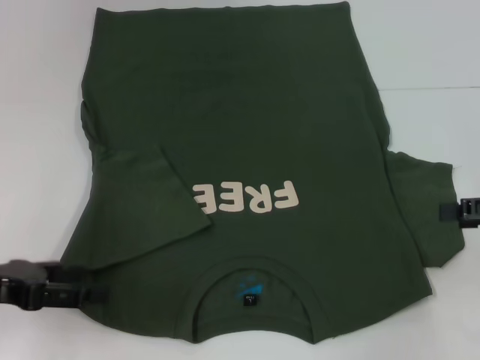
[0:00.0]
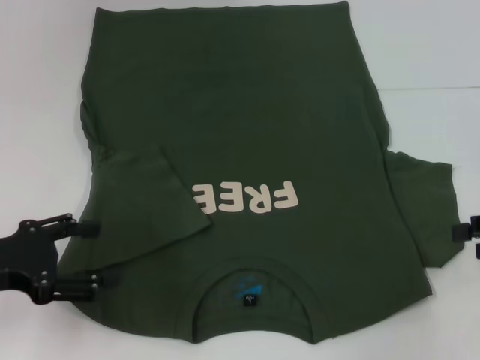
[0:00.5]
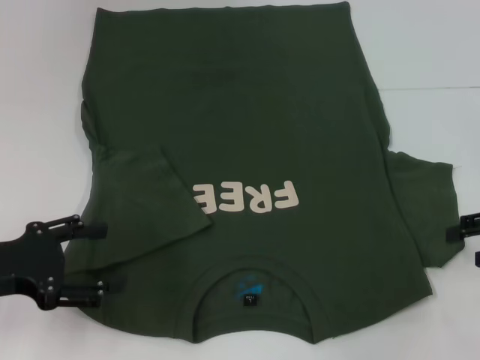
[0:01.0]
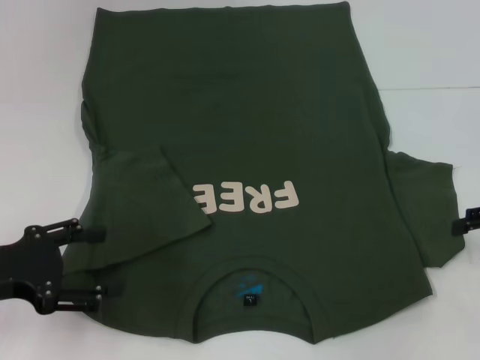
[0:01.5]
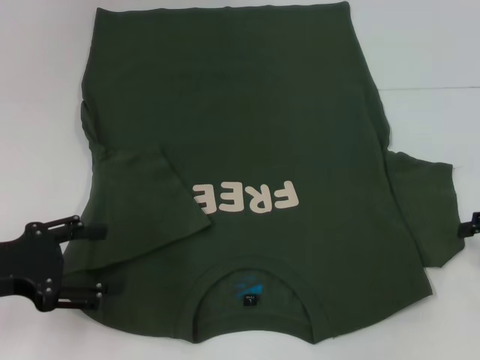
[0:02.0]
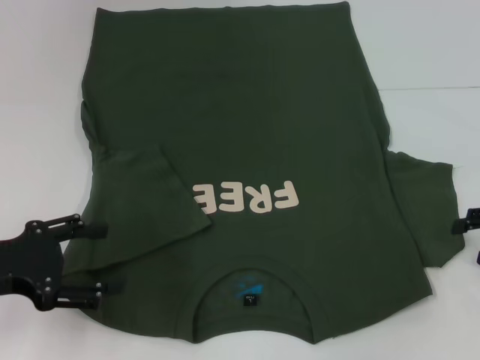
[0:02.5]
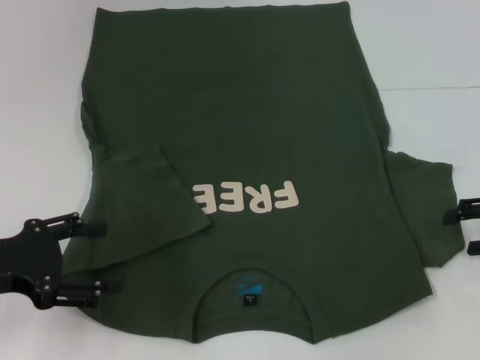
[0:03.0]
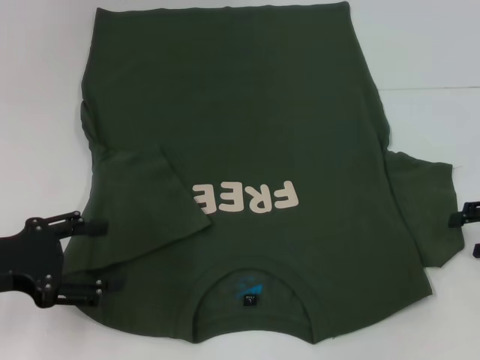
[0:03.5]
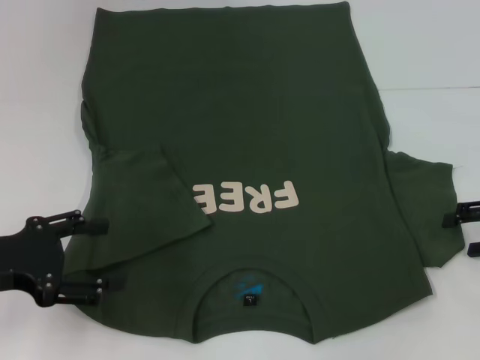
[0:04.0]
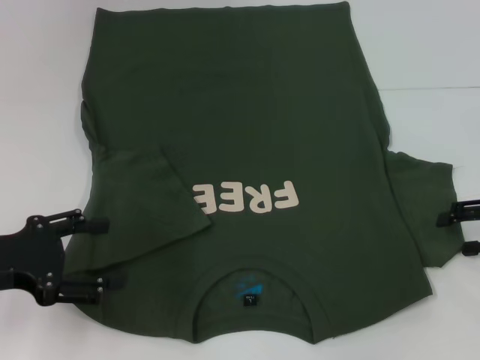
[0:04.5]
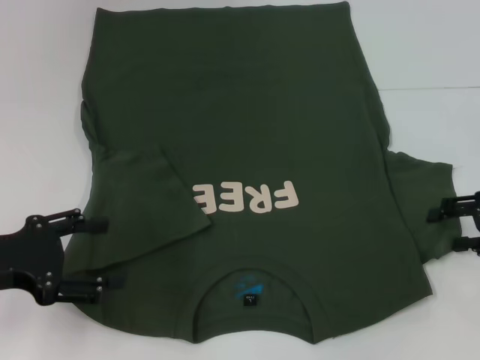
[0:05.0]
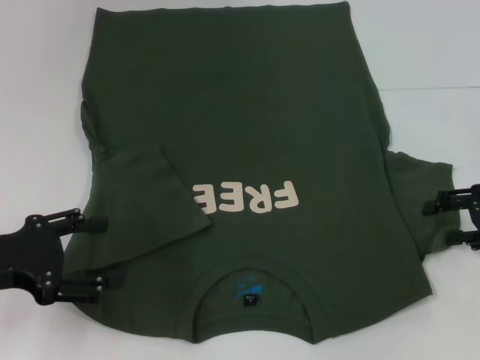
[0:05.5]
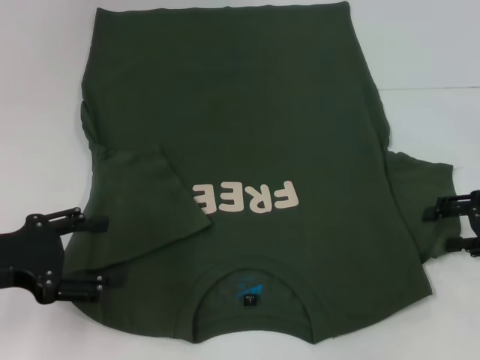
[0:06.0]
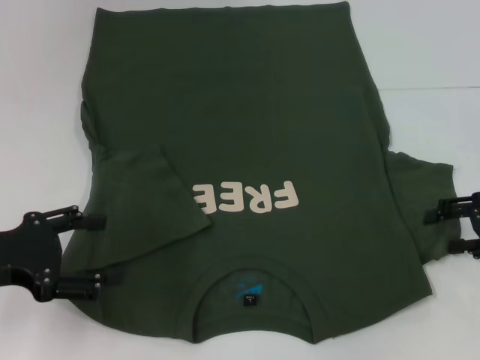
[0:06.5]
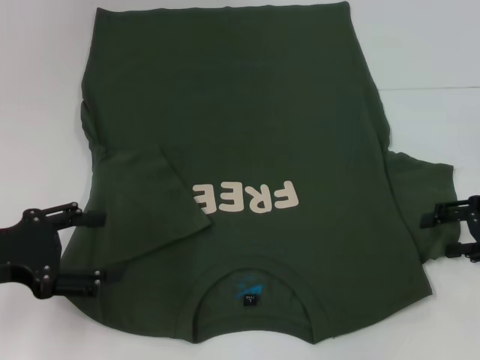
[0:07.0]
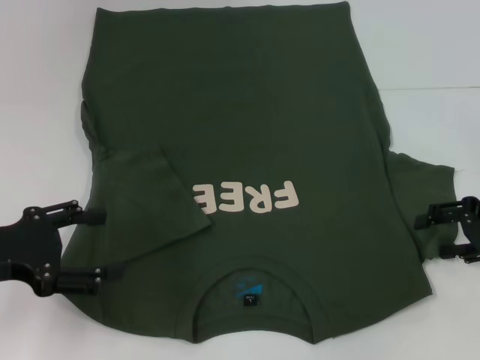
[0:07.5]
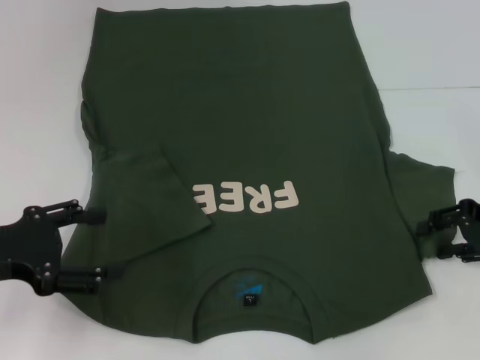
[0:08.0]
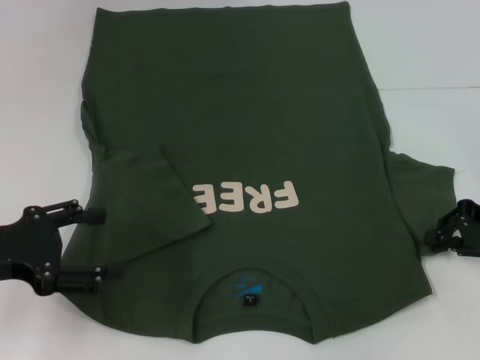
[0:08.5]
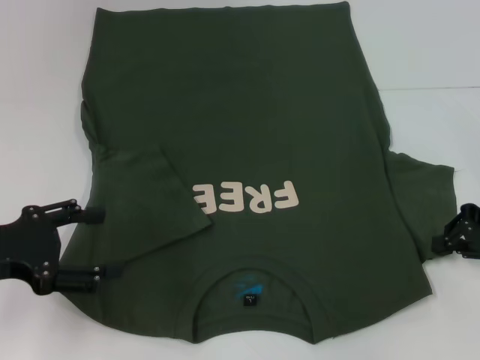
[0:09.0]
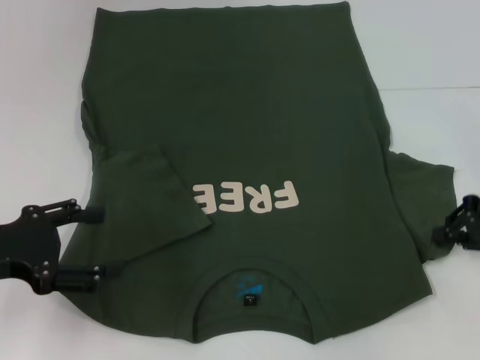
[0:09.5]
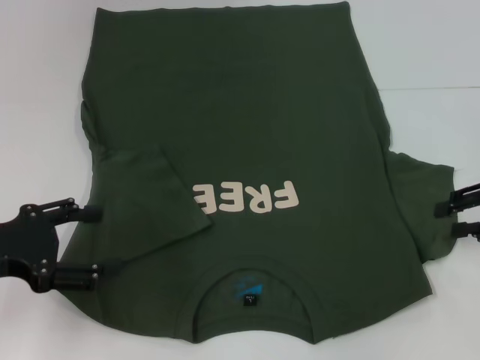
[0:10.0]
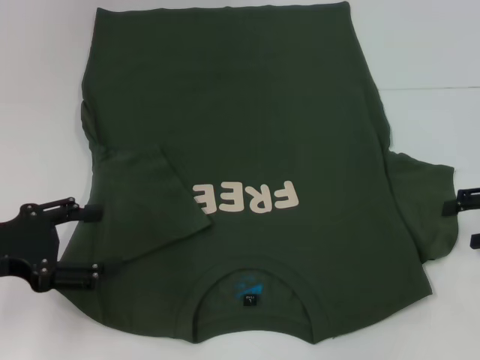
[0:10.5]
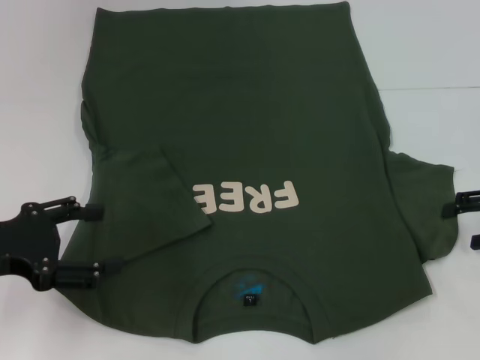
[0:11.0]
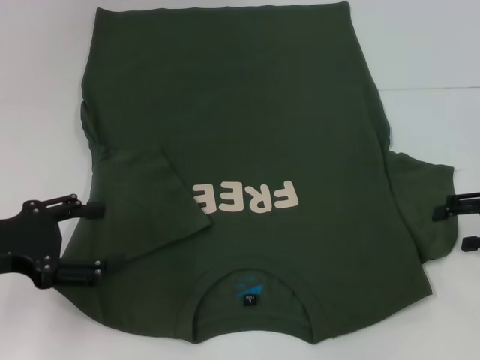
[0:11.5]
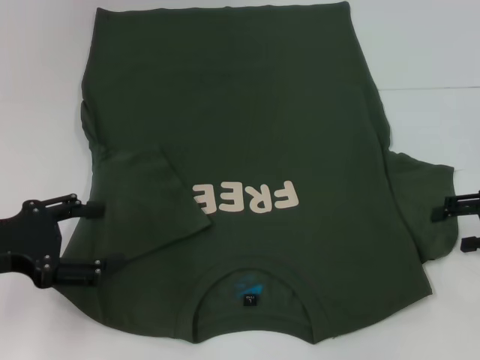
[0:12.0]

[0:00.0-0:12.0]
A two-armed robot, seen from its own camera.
0:02.0 to 0:06.0: The grippers make only small movements.
0:06.0 to 0:08.0: The two grippers keep their place.
0:08.0 to 0:10.0: The right gripper closes its fingers.
0:10.0 to 0:12.0: The right gripper opens its fingers.

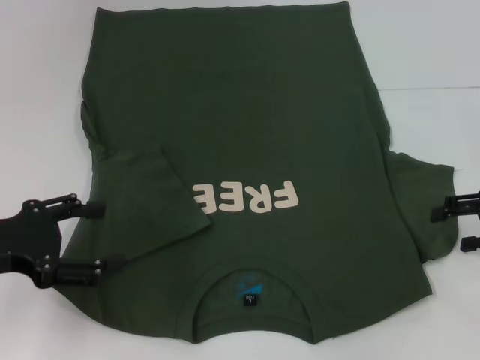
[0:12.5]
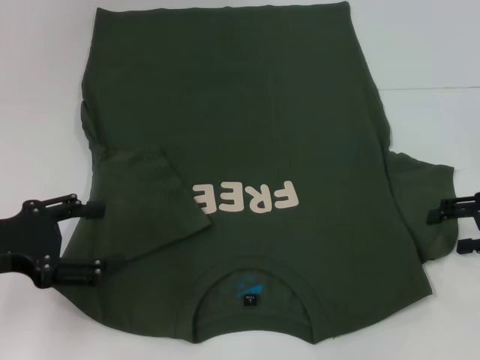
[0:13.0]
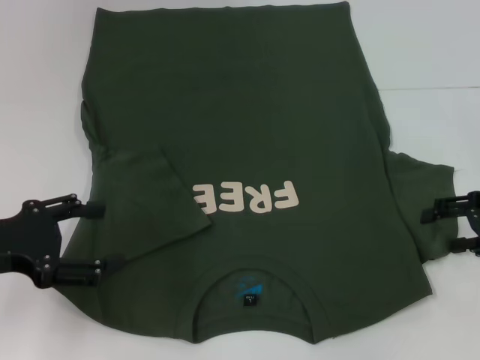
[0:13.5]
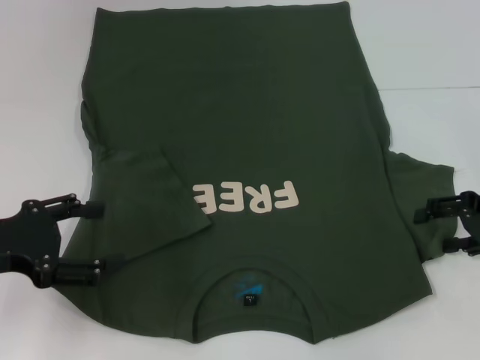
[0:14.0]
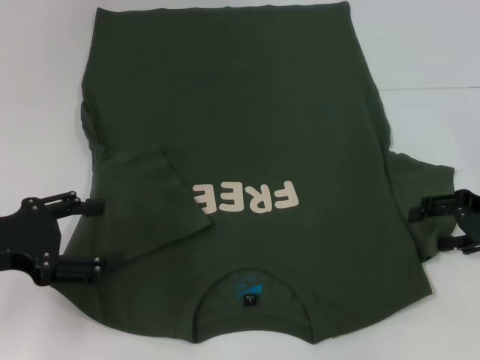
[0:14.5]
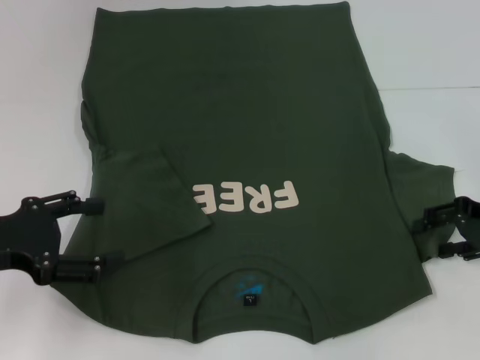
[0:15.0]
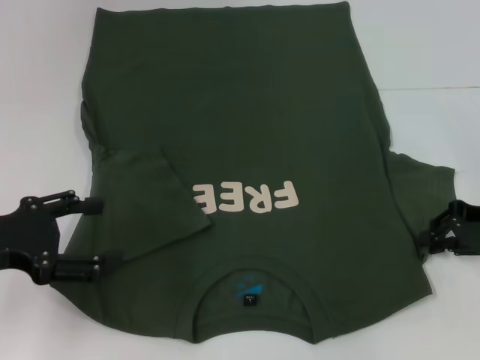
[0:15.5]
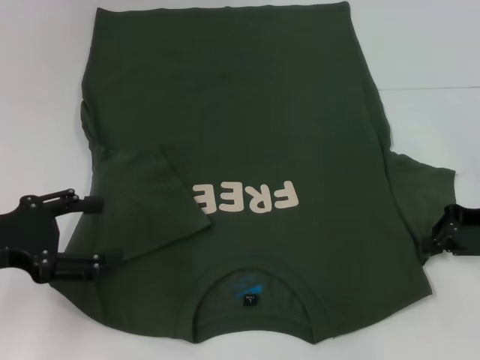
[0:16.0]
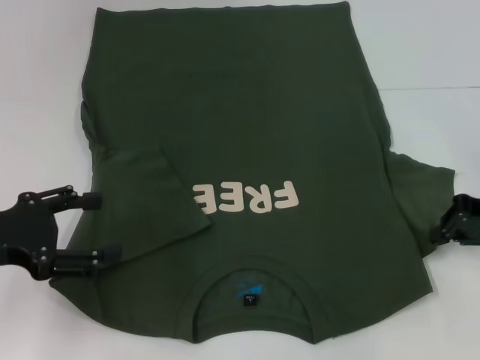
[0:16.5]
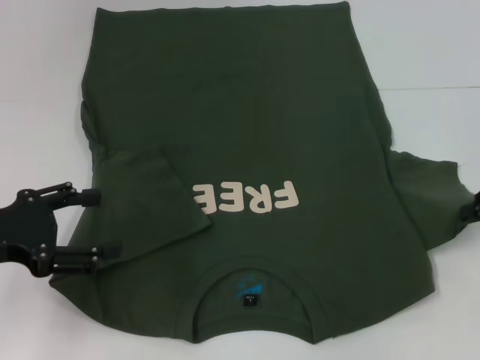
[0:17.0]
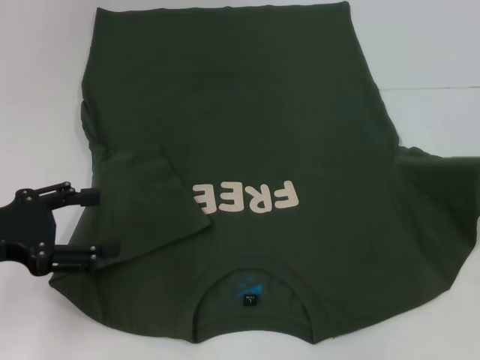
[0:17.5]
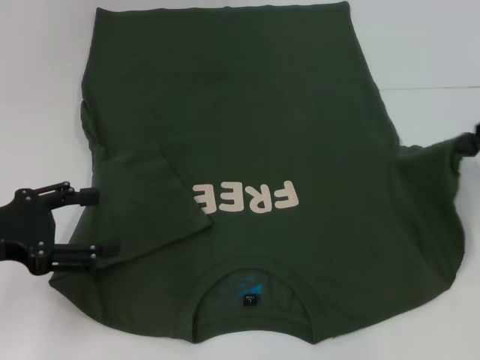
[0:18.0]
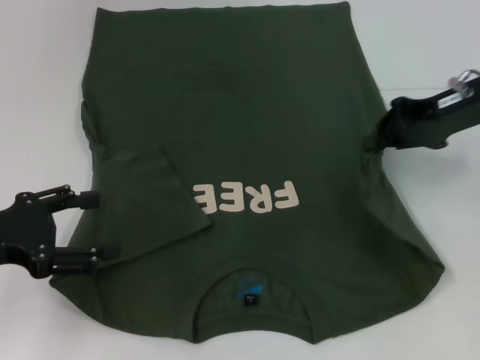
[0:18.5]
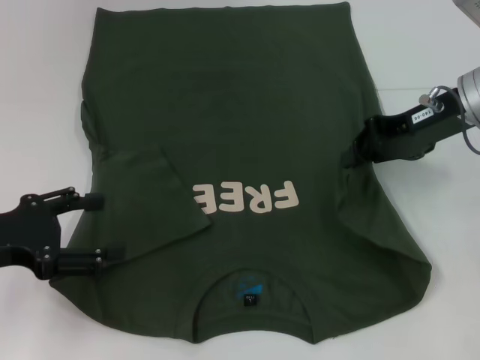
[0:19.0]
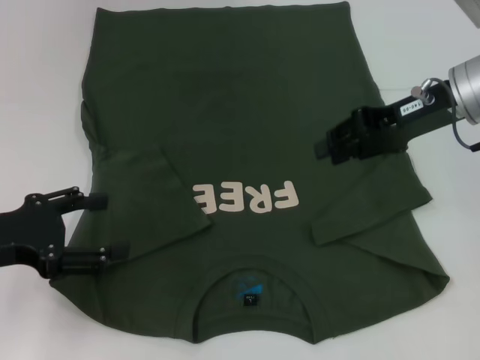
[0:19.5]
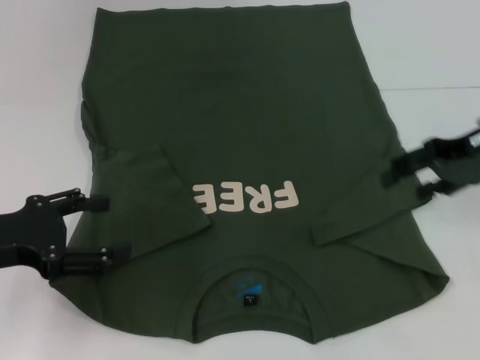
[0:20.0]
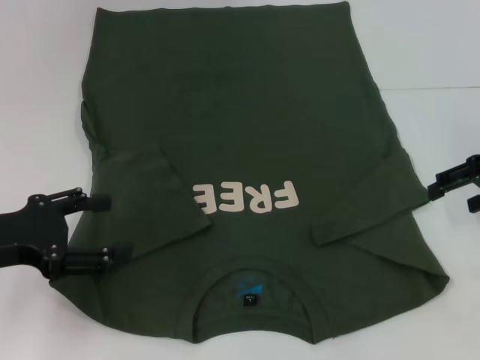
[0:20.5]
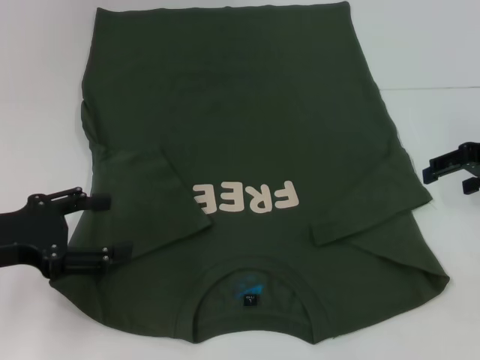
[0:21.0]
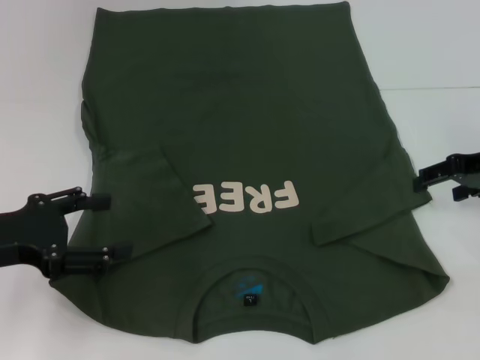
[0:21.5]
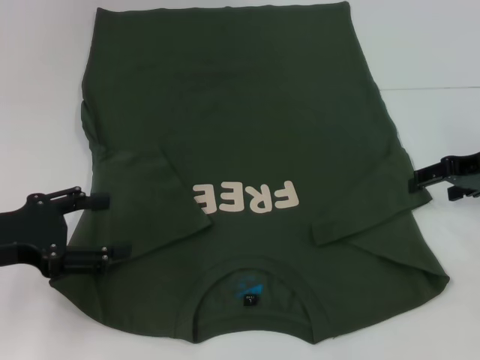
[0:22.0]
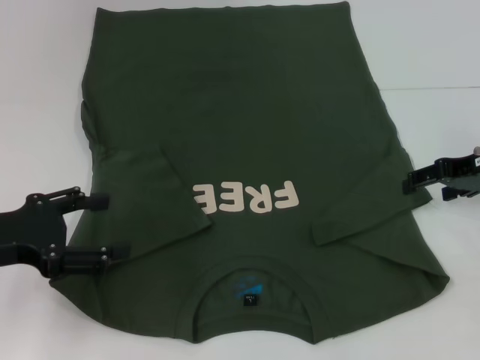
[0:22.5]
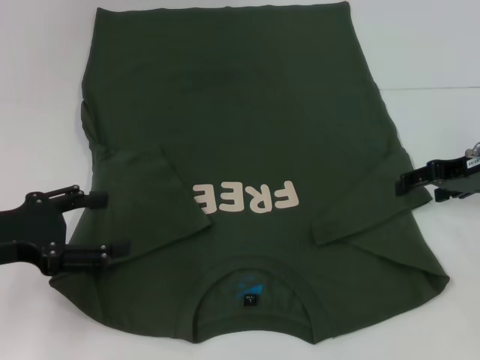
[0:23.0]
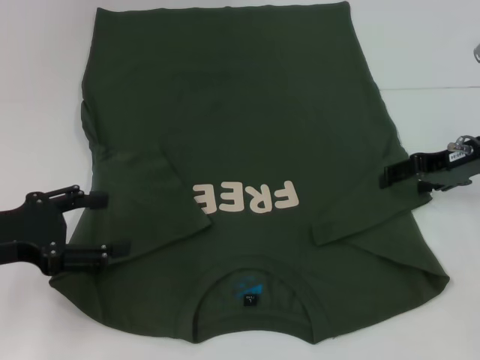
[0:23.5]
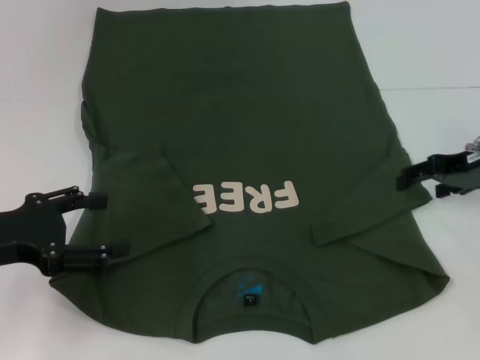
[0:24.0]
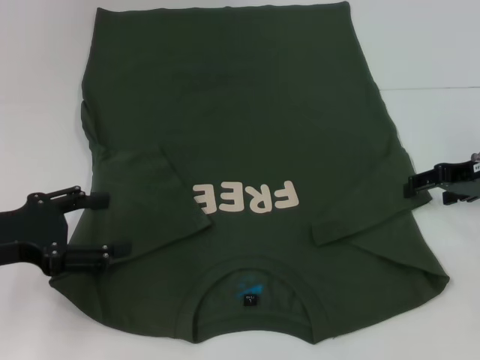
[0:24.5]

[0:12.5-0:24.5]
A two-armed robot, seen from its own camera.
0:12.5 to 0:14.5: The grippers move only a little.
0:14.5 to 0:16.5: The right gripper closes its fingers.
0:16.5 to 0:18.5: The right gripper heads upward, to the left and forward, covering some 15 cm.
0:18.5 to 0:20.5: The right gripper shifts roughly 5 cm to the right, and opens.
0:20.5 to 0:22.5: The grippers stay close to where they were, moving slightly.
0:22.5 to 0:24.5: There are only small adjustments of the grippers.

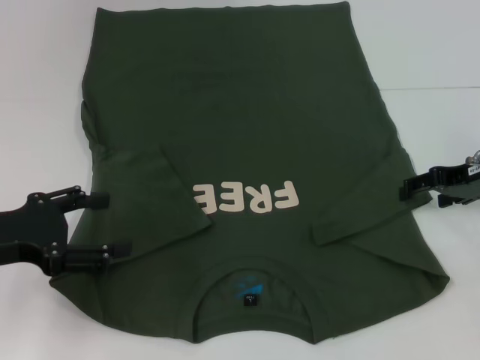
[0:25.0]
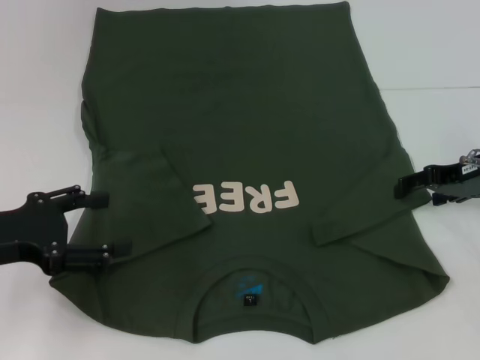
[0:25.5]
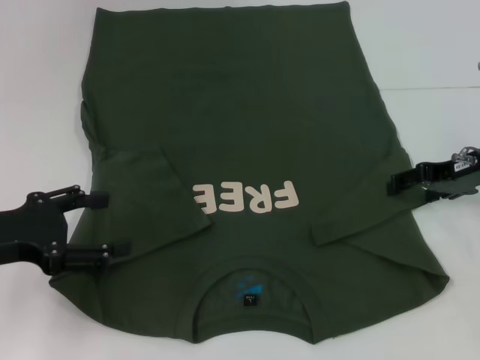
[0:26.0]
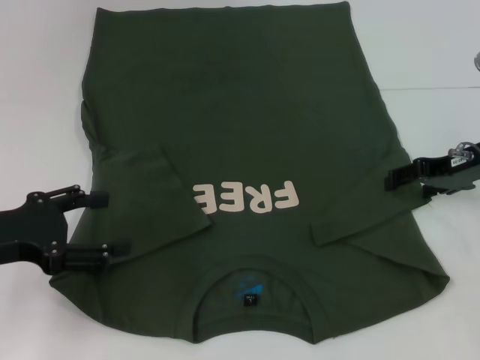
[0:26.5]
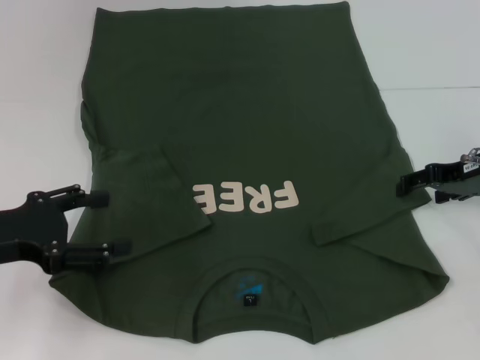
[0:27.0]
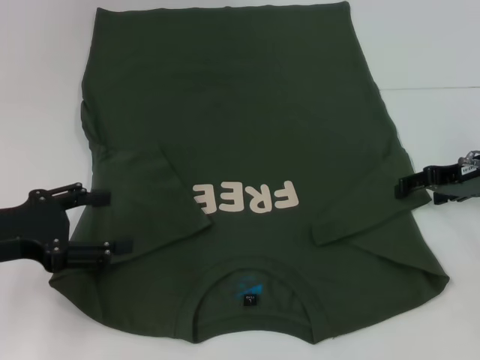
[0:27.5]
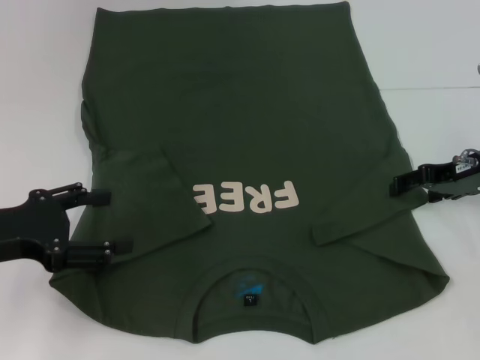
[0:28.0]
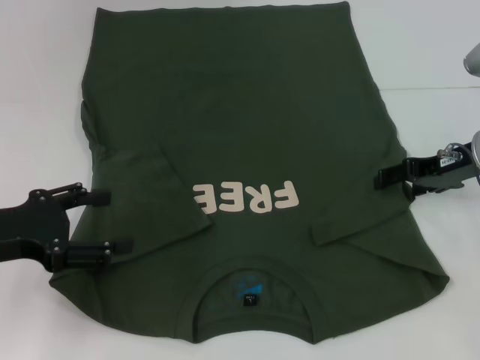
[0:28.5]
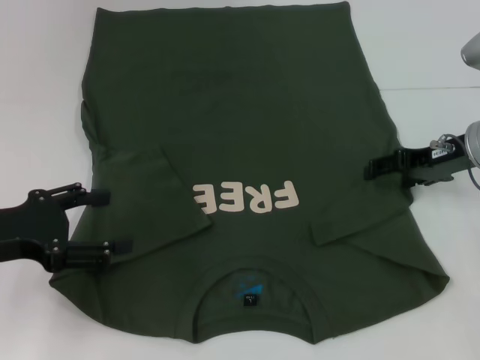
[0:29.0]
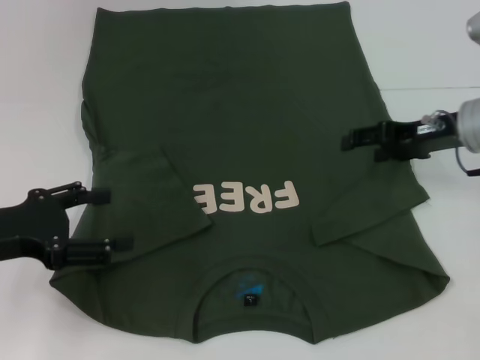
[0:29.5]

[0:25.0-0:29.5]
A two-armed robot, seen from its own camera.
0:25.0 to 0:29.5: The grippers move only a little.
